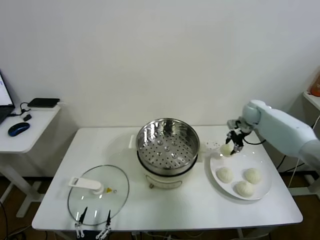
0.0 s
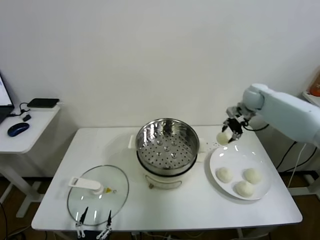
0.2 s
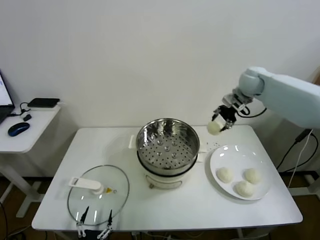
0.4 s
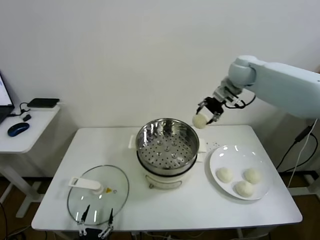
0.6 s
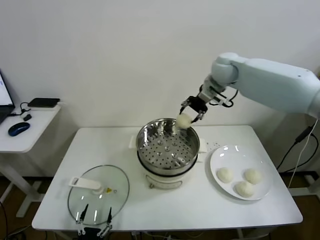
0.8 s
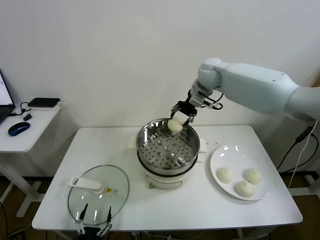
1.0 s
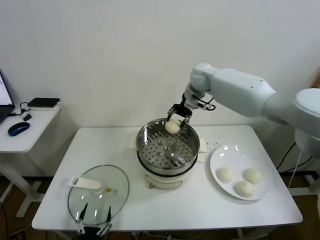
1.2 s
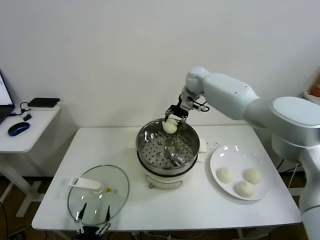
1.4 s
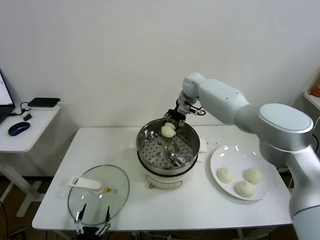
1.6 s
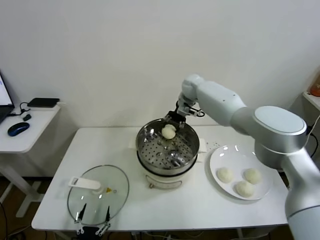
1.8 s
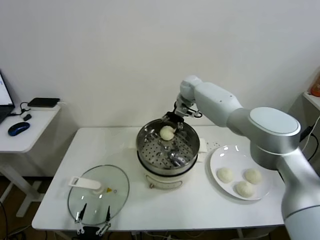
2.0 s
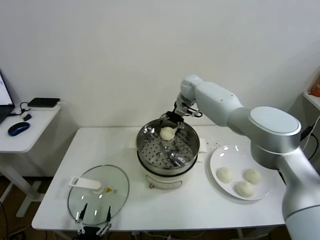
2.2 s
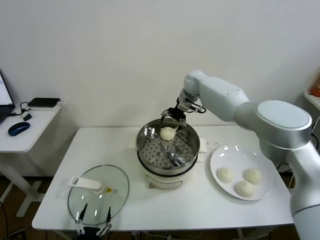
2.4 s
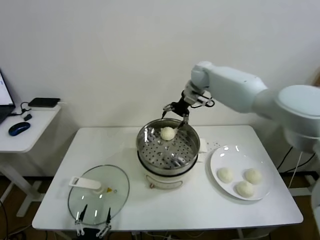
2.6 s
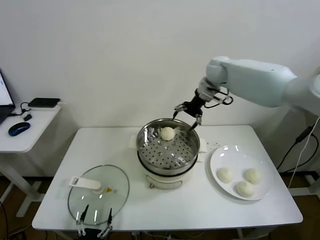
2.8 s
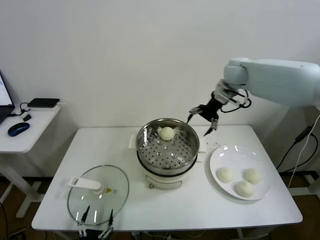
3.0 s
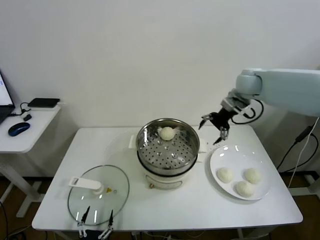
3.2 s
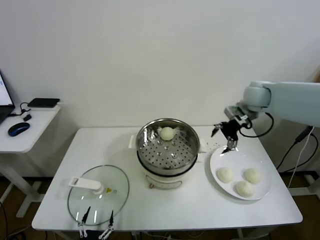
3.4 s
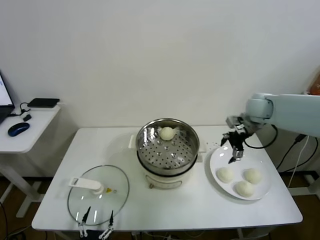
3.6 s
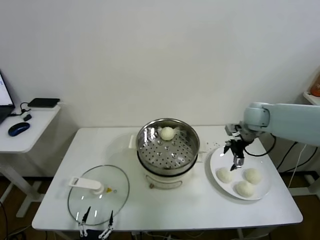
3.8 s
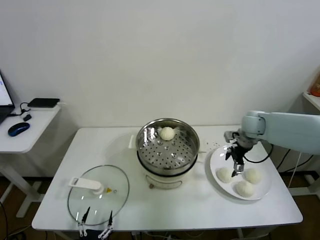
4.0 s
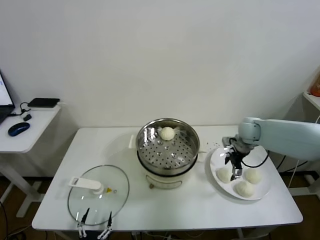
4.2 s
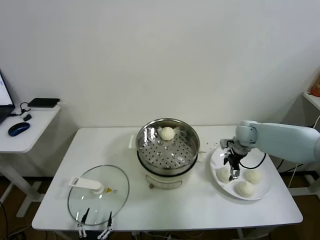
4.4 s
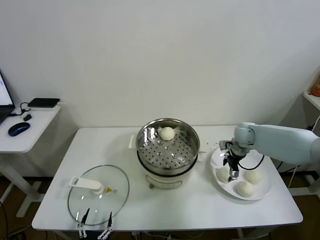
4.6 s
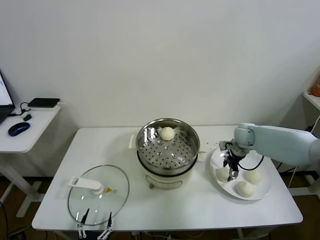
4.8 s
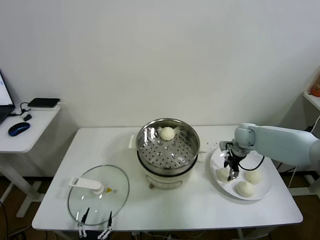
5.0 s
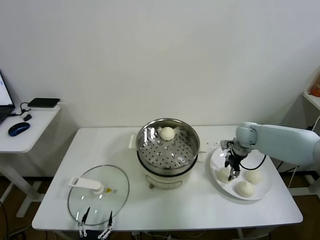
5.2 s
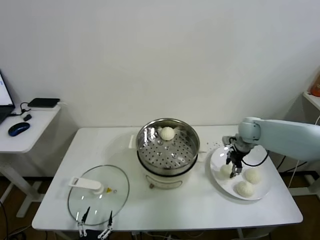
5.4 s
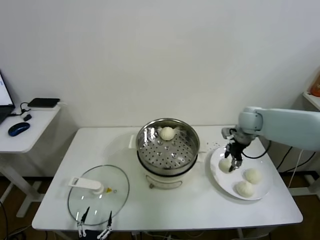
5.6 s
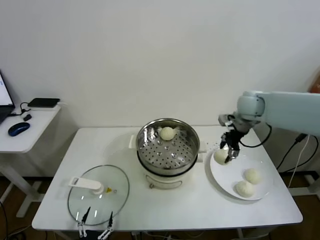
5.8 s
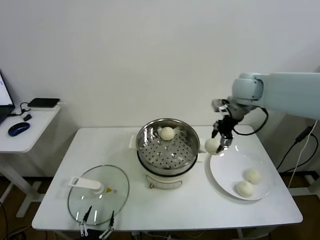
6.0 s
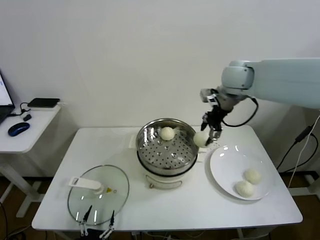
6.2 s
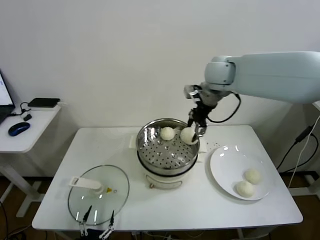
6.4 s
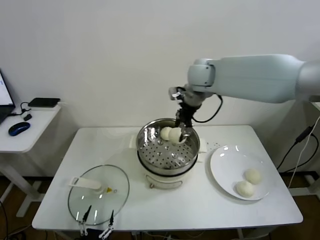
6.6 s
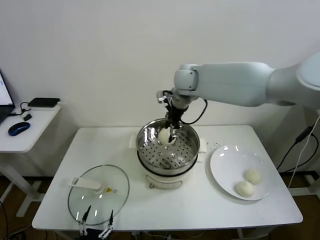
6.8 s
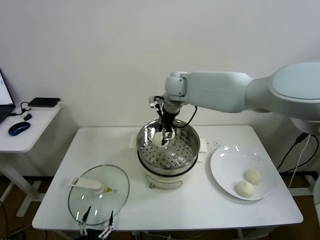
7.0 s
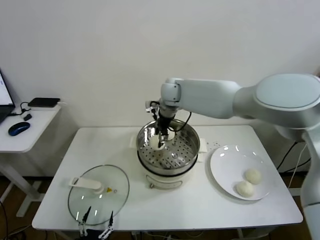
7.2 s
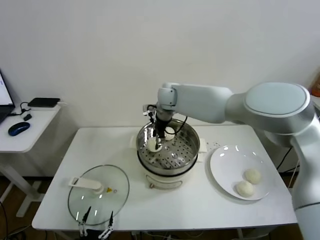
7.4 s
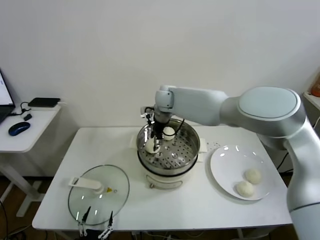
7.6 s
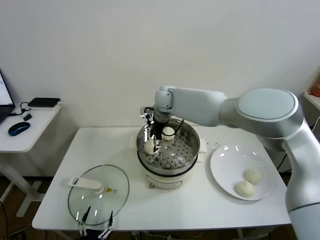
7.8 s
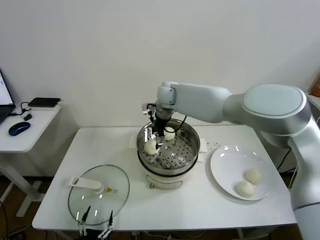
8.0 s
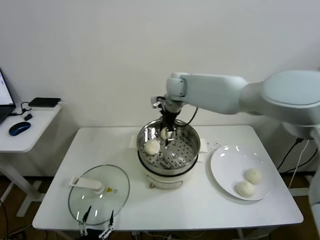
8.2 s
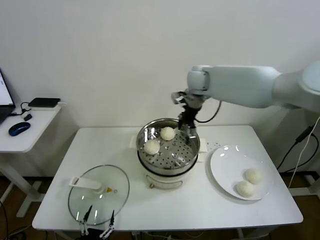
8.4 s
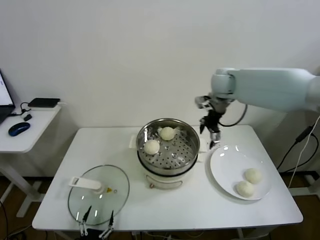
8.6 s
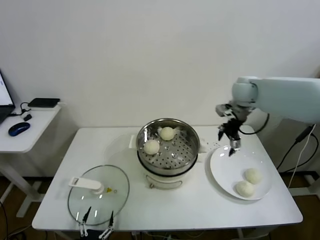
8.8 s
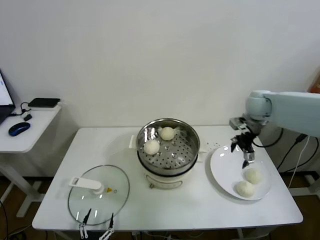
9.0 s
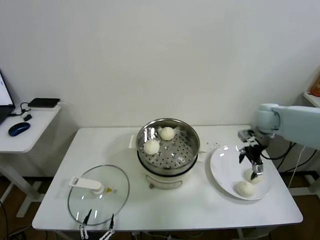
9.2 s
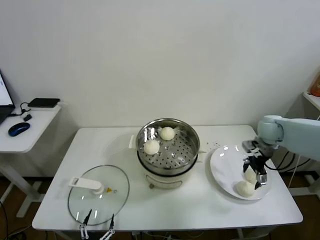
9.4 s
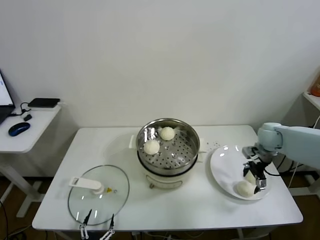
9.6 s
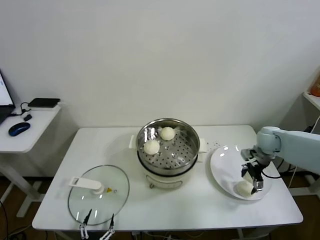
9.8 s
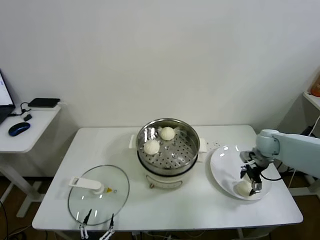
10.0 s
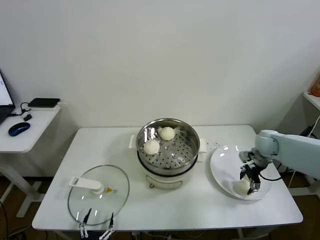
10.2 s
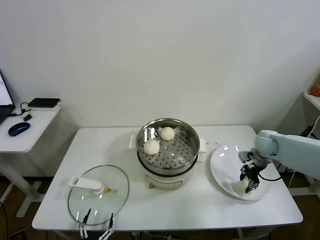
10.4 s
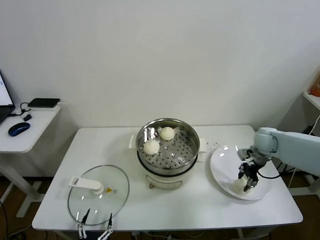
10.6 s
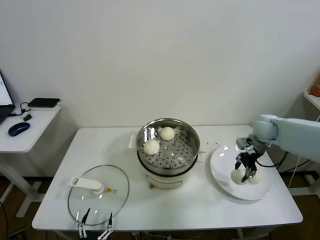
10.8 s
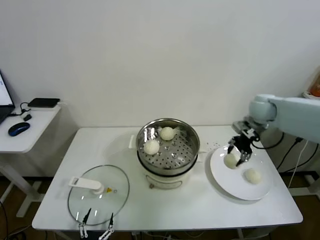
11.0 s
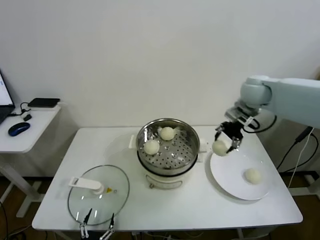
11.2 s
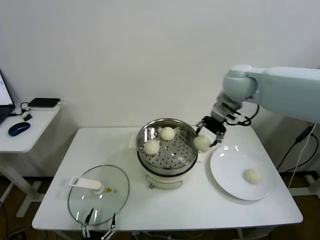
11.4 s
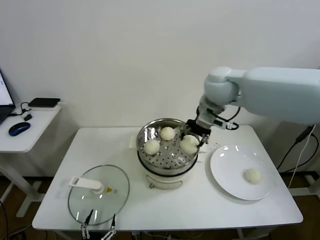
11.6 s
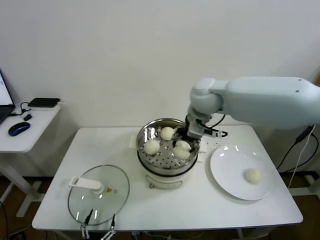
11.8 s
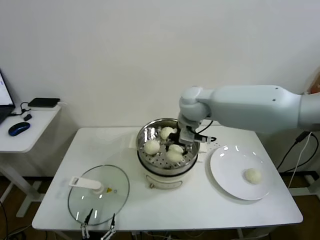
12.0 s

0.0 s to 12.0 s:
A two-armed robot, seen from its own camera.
Task of the whole recording: take steamed baozi put them in steamer.
Step, 0.0 to 2.0 s: Place the baozi on the steamer with right gripper.
Step, 2.4 to 5.0 s: Grasp the baozi in the plate with right gripper.
Step, 5.2 to 7.8 s: Place the baozi on the steamer with right gripper.
Step, 8.0 to 10.2 s: Grasp the baozi in the plate with right gripper.
0.0 to 1.6 s: The right gripper goes approximately 25 cm to the left.
1.6 to 3.0 s: The right gripper travels to the right, upward and backward by approximately 20 cm, and opens its fingers.
3.0 to 4.4 s: The right gripper heads downward, covering approximately 20 cm.
4.4 to 6.0 s: The right gripper goes some 20 cm upward, and closes.
6.0 to 7.6 s: The right gripper is displaced to the left and downward by roughly 25 cm.
7.6 to 9.0 s: The right gripper travels to the right by some 30 cm, and opens up.
9.0 to 10.4 s: The right gripper goes approximately 15 cm downward and to the right, and closes its fingers.
10.4 to 12.0 s: The right gripper goes roughly 35 cm to the left and upward.

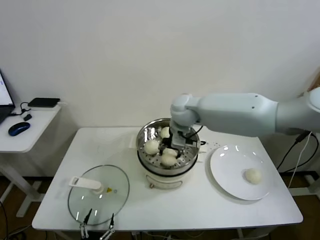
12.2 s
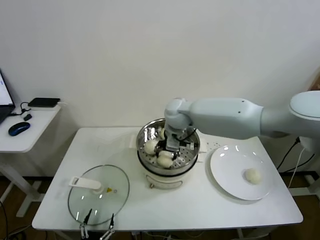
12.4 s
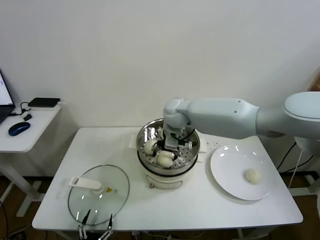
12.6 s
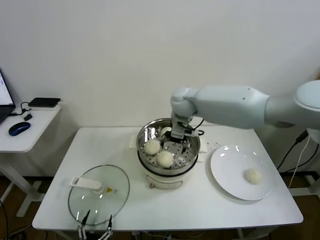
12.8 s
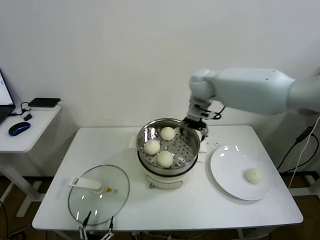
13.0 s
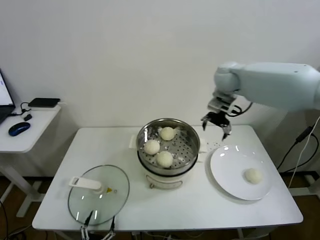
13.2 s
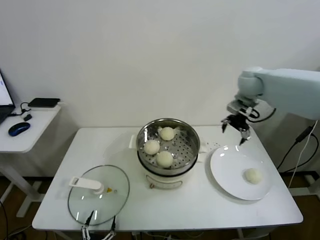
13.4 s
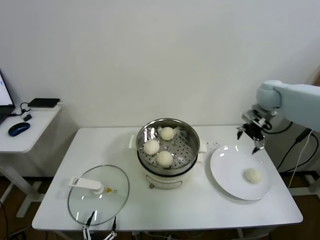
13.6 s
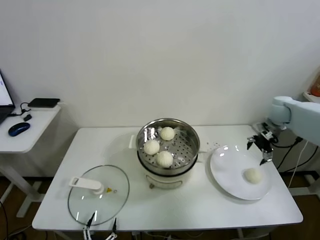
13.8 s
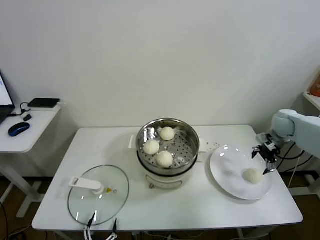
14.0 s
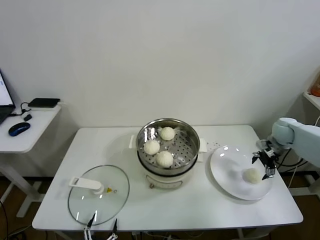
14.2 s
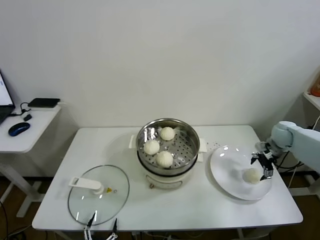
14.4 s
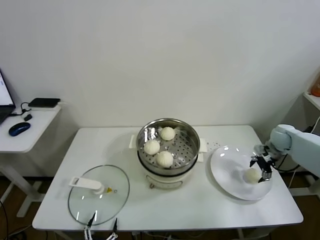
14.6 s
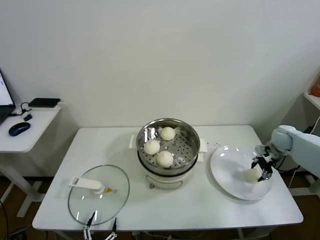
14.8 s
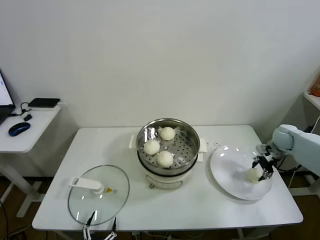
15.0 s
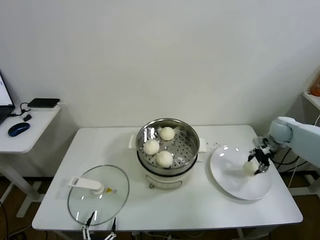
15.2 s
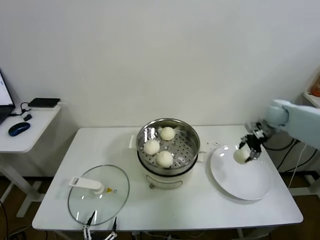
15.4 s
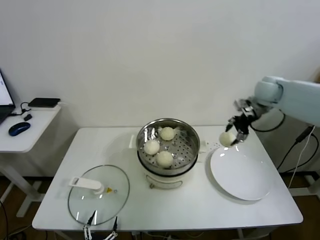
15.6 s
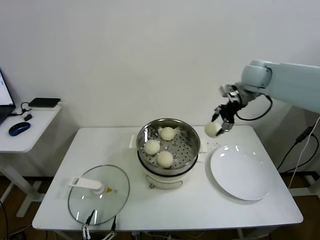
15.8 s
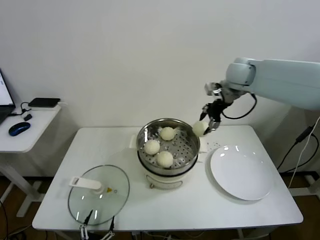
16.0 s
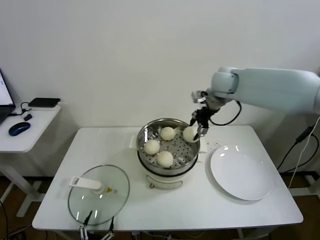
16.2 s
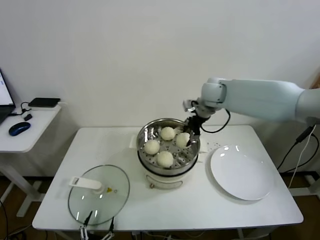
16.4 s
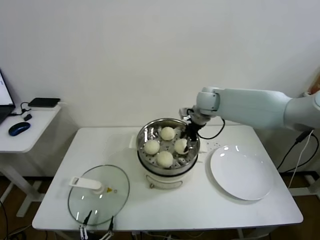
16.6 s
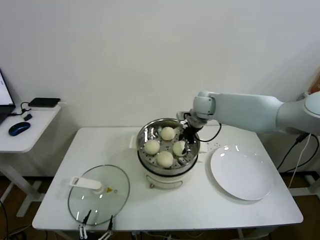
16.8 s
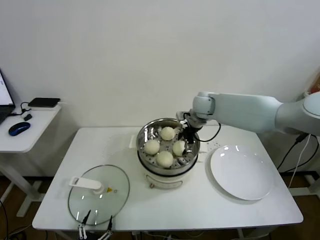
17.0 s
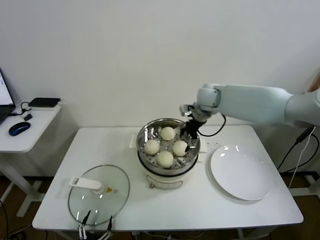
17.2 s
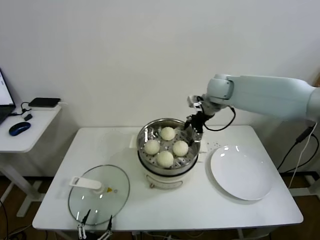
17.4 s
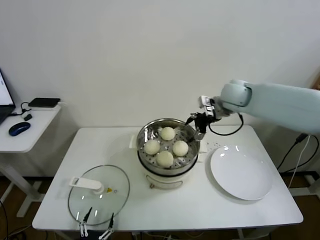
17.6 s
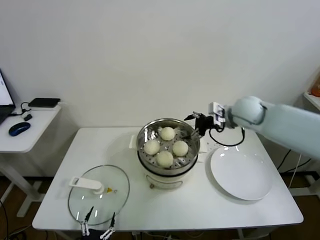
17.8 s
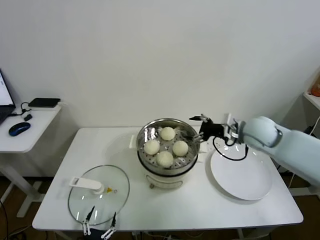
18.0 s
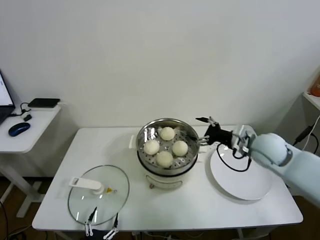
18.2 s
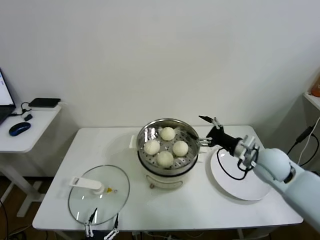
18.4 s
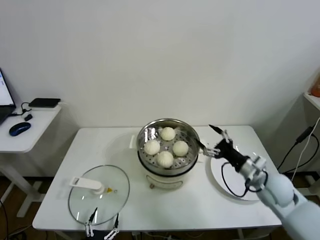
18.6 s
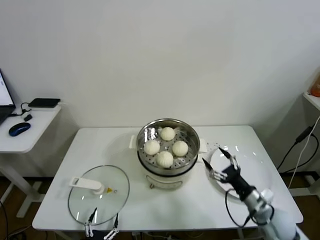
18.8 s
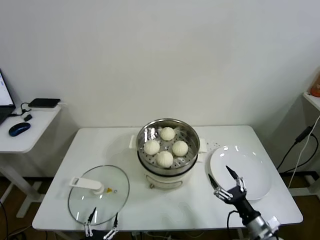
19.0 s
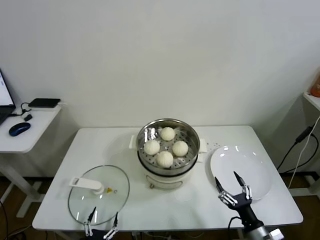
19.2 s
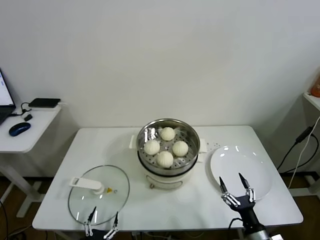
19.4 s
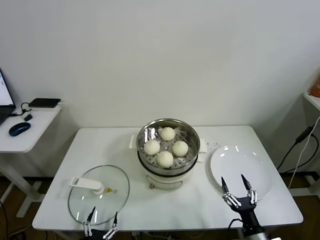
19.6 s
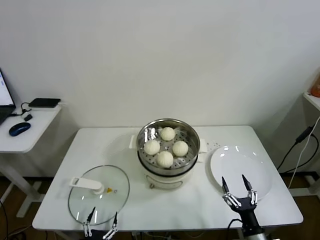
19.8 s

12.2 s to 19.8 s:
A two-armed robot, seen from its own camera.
Task of the whole recording: take steamed baozi put them in steamer.
Step, 12.8 to 14.8 s: Grasp the baozi in the plate with right gripper.
Step, 15.2 to 17.0 s: Place the baozi on the steamer with right gripper.
12.2 to 13.8 s: The right gripper shifts roughly 35 cm to the right, and opens its fingers.
13.8 to 15.2 s: The right gripper is displaced downward by approximately 10 cm, and closes its fingers.
15.2 to 16.8 s: The right gripper heads to the left, covering about 30 cm.
16.8 to 18.2 s: The right gripper is displaced backward and to the right by roughly 20 cm, and opens.
18.2 to 19.8 s: The right gripper moves backward and downward, some 35 cm.

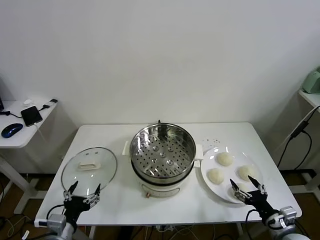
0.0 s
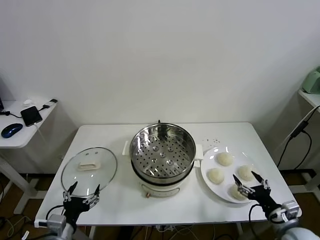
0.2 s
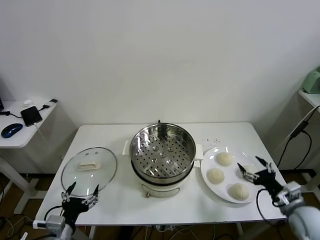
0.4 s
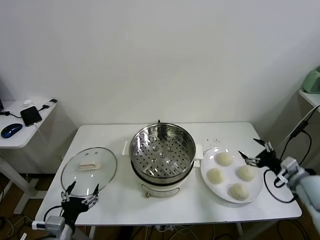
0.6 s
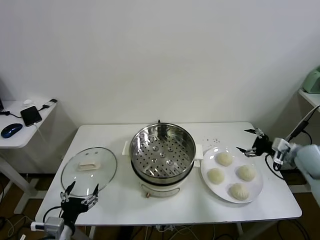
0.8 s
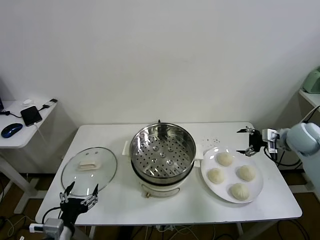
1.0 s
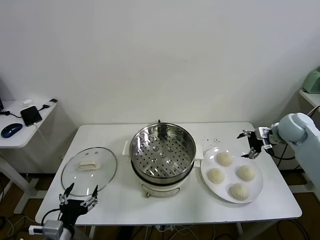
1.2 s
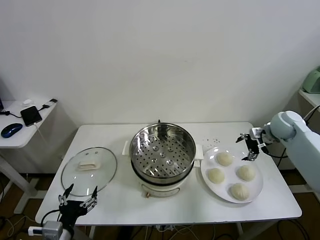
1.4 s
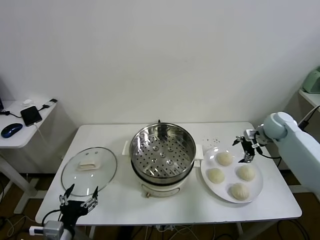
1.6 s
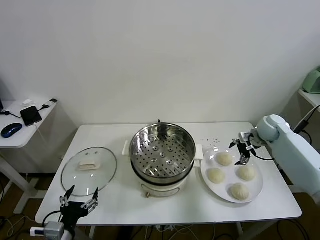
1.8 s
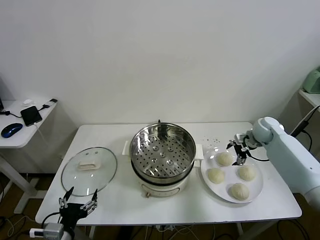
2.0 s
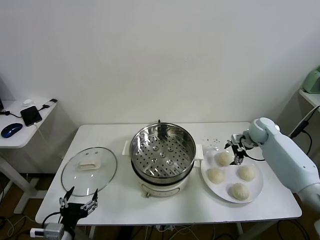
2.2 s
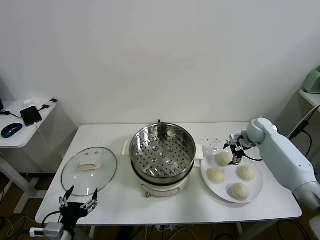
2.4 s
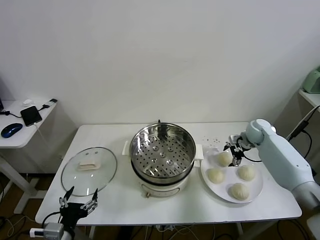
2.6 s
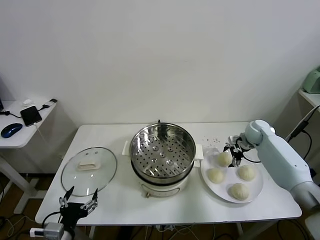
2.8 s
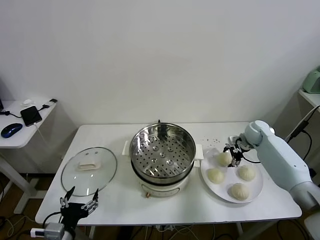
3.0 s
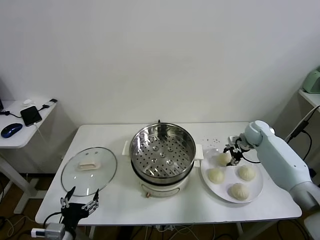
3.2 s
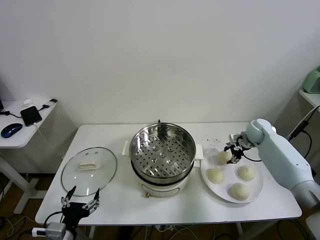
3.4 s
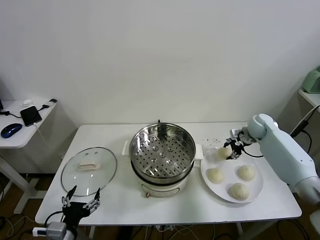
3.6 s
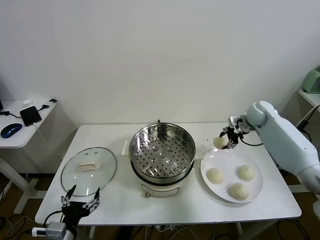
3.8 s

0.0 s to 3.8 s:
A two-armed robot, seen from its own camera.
Task of the whole recording: take steamed baozi put them in steamer.
Step, 0.0 to 3.4 s: Grasp the baozi in the plate with right gripper.
1.2 to 2.6 s: The right gripper shifts about 10 cm downward.
2.6 to 3.8 s: The right gripper shifts about 15 cm upward, and closes its fingers.
